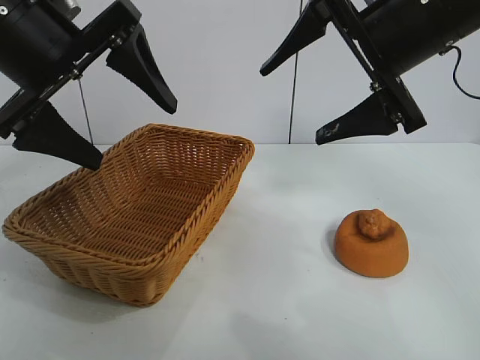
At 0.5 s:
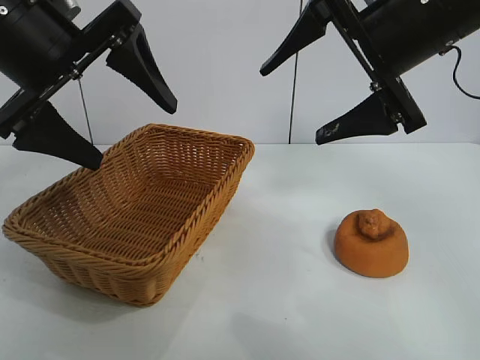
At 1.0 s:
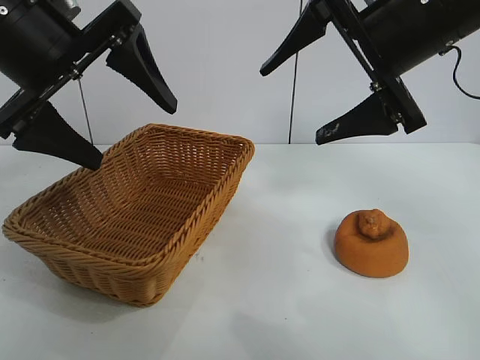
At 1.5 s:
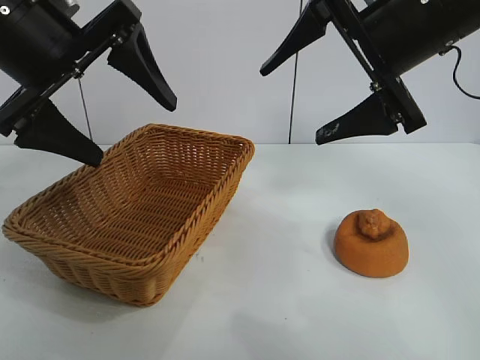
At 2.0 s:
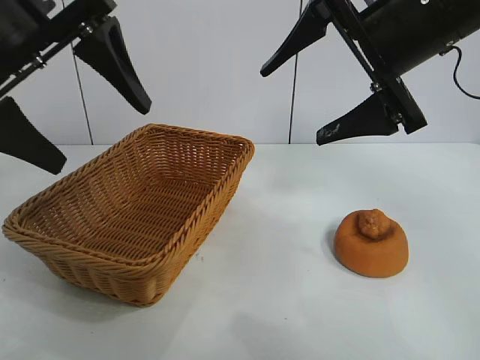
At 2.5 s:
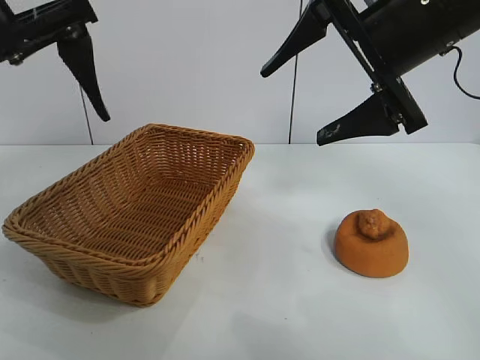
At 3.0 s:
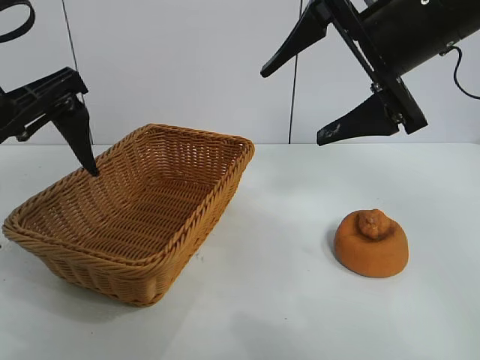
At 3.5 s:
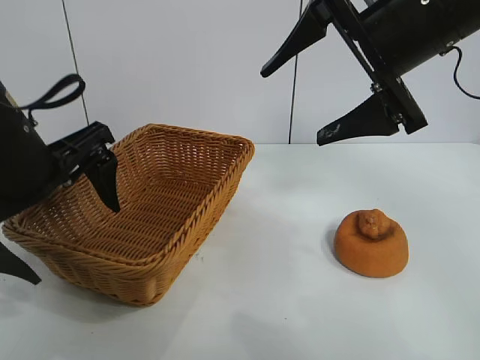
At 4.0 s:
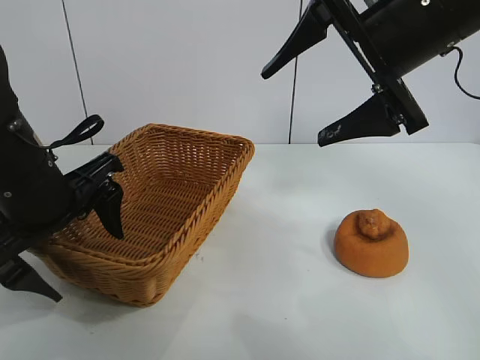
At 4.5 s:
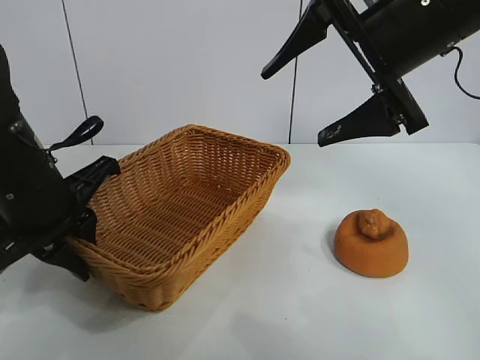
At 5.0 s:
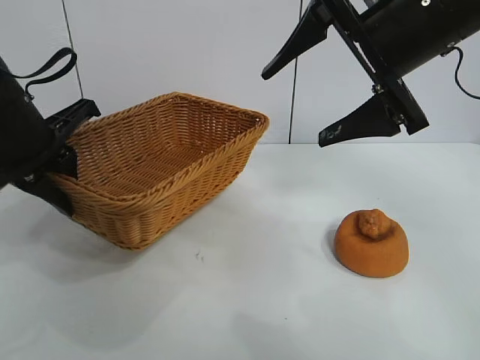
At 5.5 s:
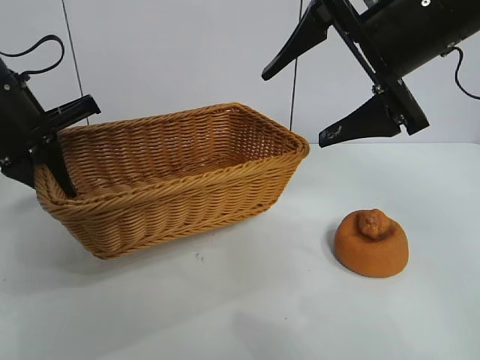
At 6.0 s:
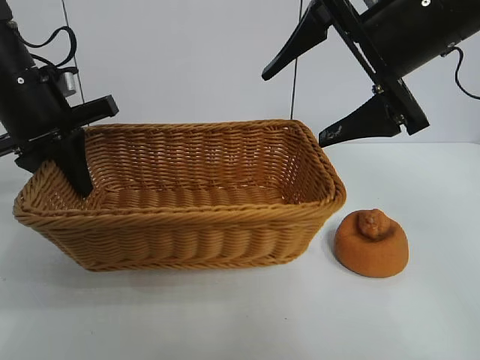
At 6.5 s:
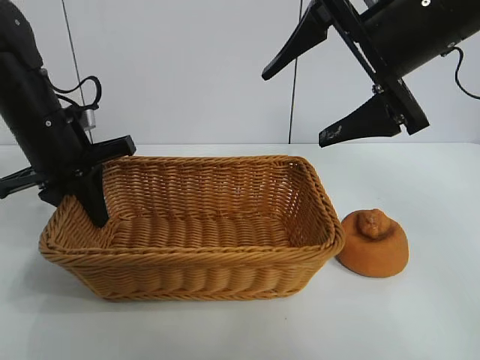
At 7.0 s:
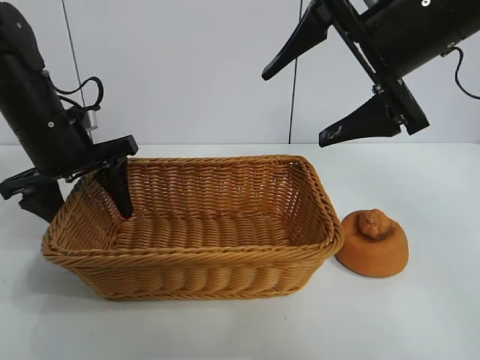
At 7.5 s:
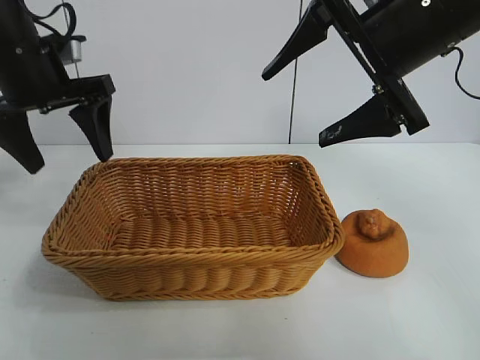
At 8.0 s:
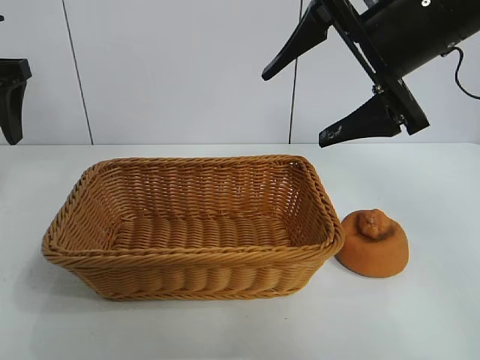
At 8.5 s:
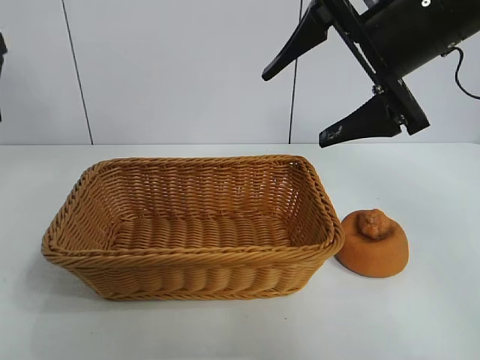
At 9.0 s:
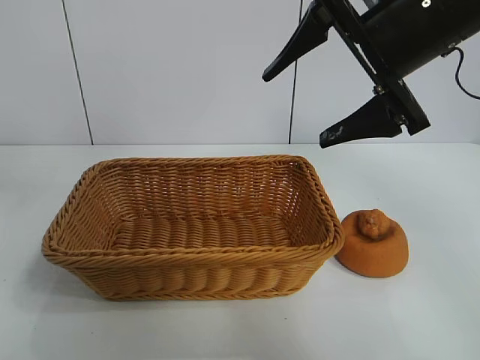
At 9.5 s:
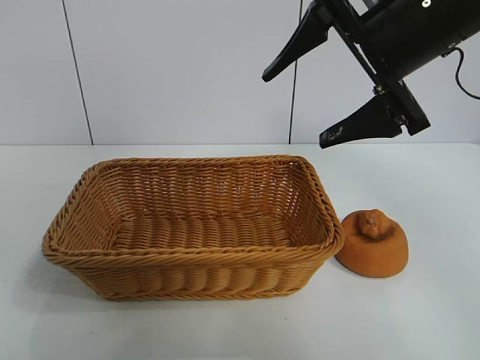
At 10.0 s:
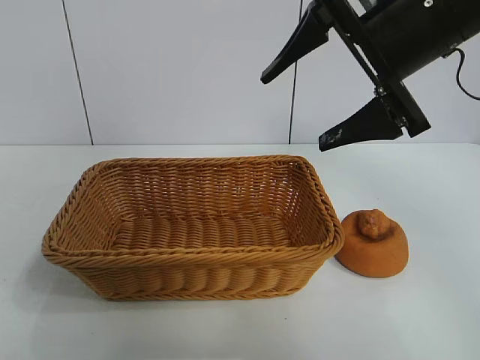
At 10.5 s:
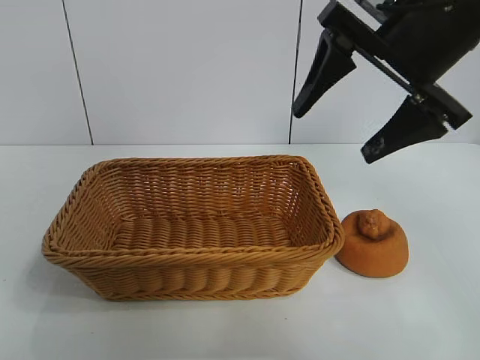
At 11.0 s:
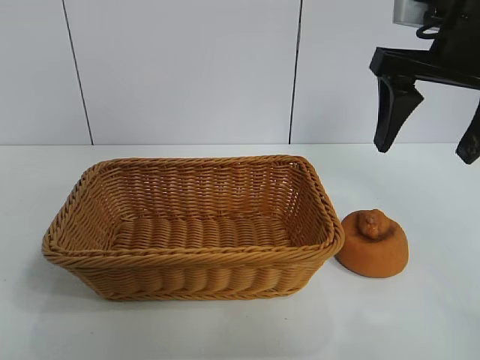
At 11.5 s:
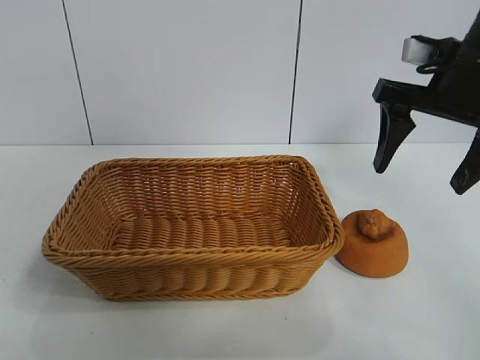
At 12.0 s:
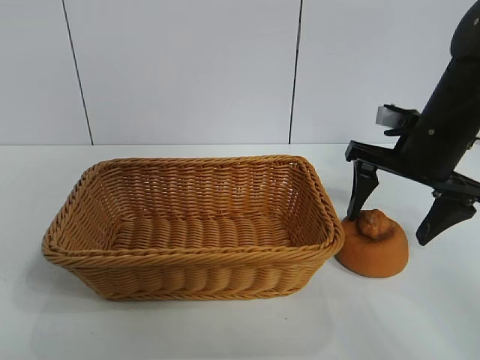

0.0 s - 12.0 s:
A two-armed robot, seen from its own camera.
Task of the whole recording: pick up the orange and put it into the basket.
Step, 1.5 s - 4.0 s: Grasp the basket with left gripper.
Step, 4.5 s - 7.0 s: Place the basket in the center of view with left gripper.

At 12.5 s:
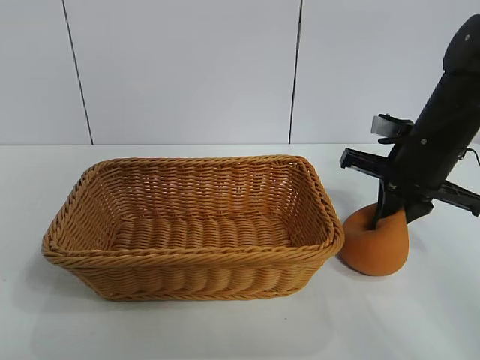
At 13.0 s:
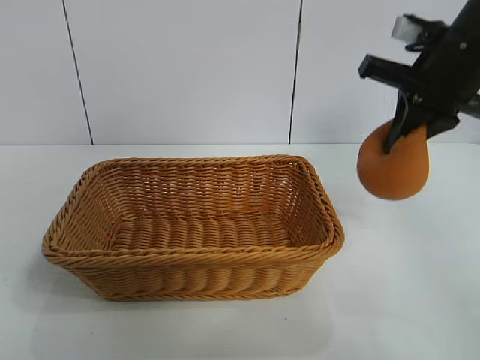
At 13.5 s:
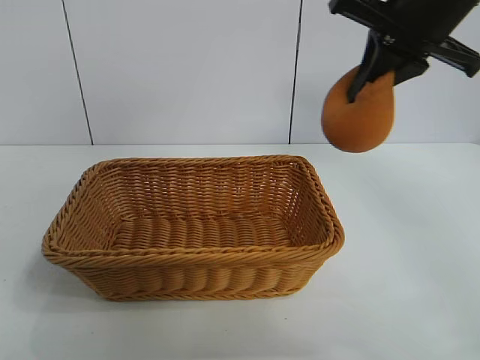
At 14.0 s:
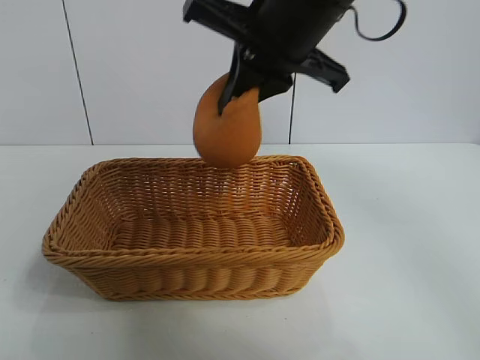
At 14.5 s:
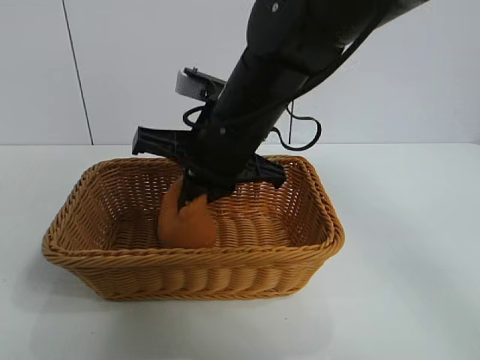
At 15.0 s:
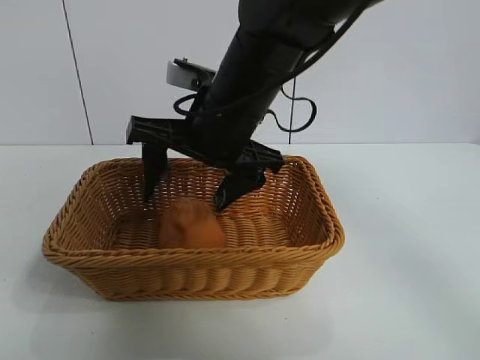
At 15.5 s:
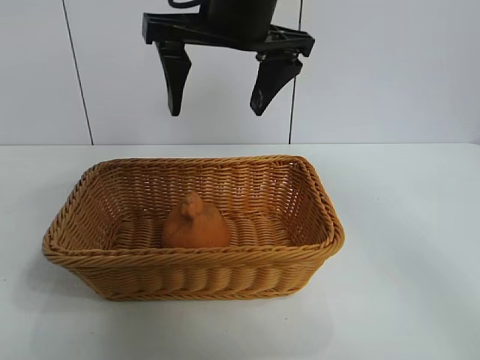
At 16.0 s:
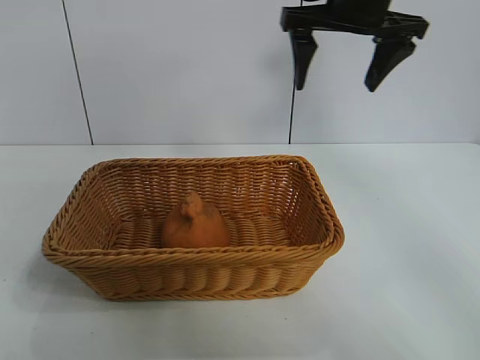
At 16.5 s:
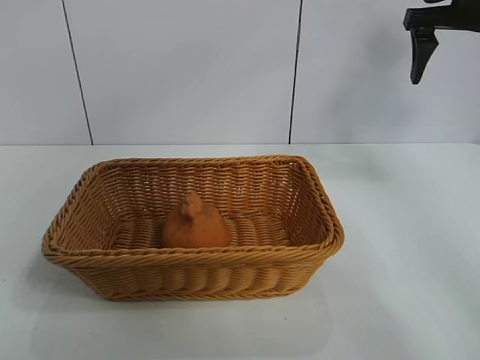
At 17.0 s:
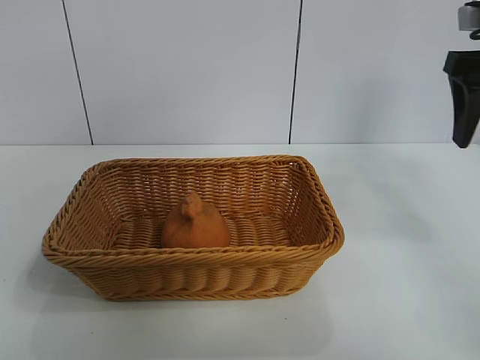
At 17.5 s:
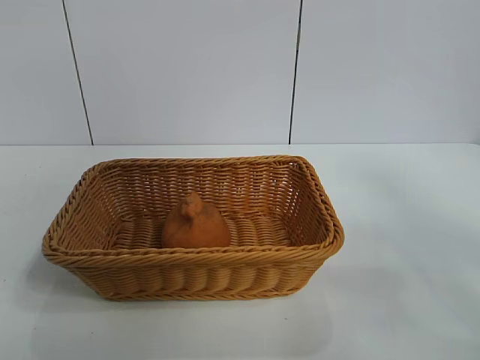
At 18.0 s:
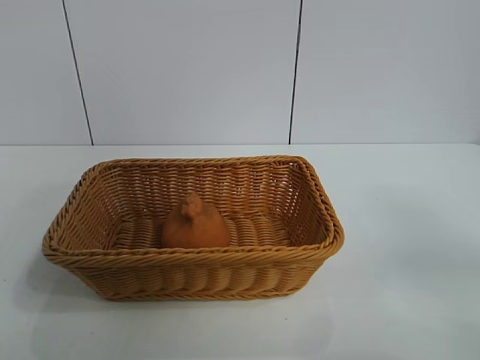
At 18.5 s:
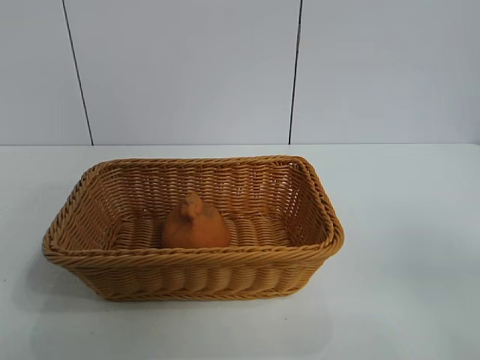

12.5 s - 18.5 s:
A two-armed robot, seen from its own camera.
Task of the whole recording: pick up the orange and put it into the basket.
Step, 13.0 s - 15.0 s: Place the orange in the basket with right gripper.

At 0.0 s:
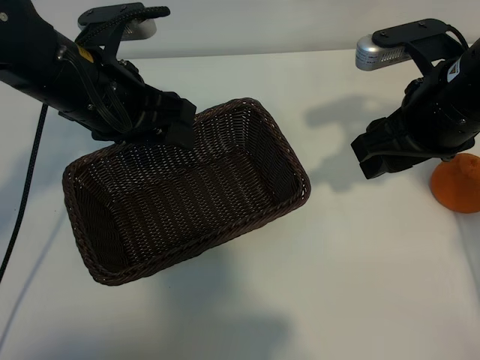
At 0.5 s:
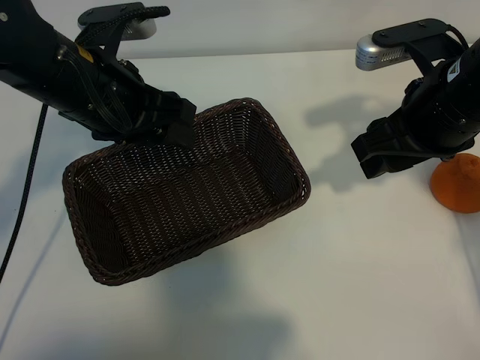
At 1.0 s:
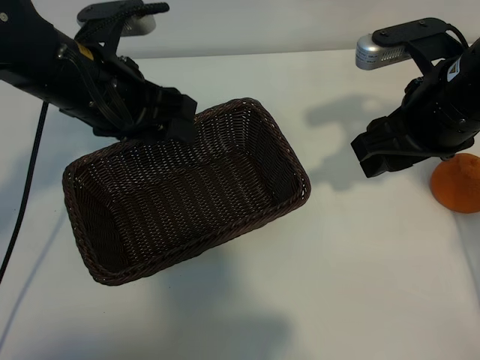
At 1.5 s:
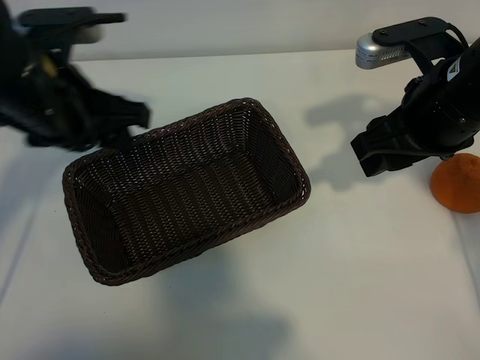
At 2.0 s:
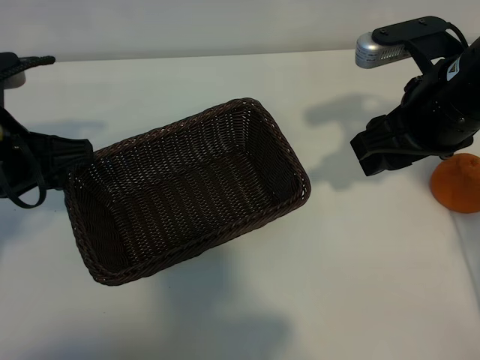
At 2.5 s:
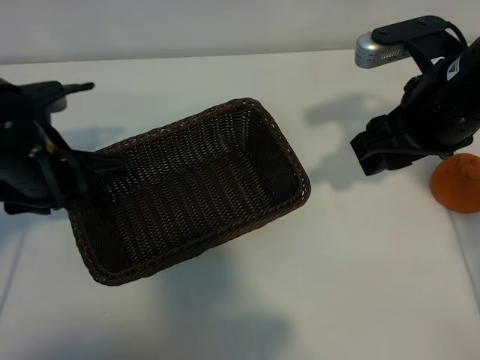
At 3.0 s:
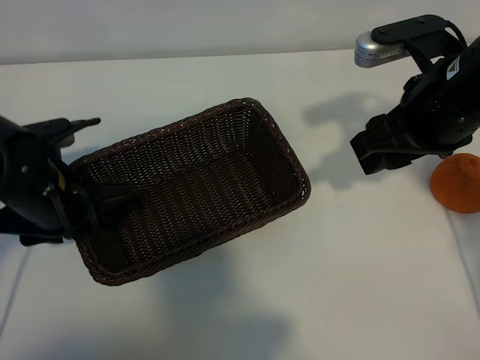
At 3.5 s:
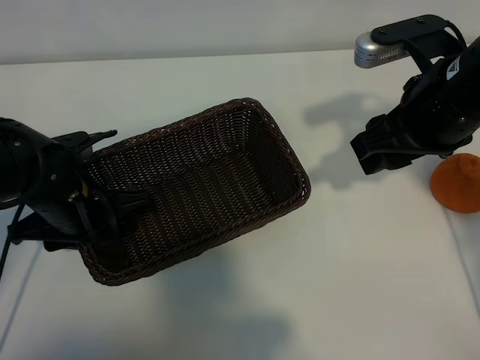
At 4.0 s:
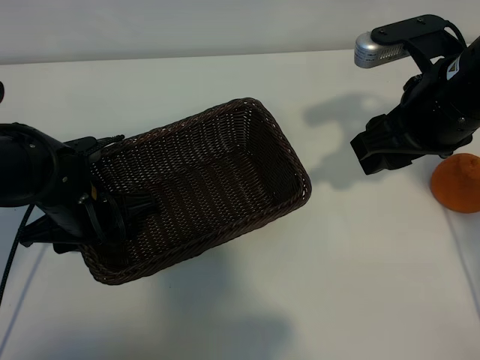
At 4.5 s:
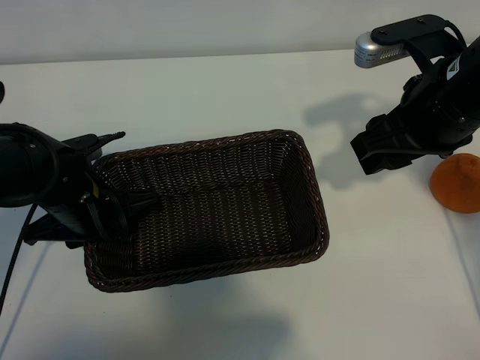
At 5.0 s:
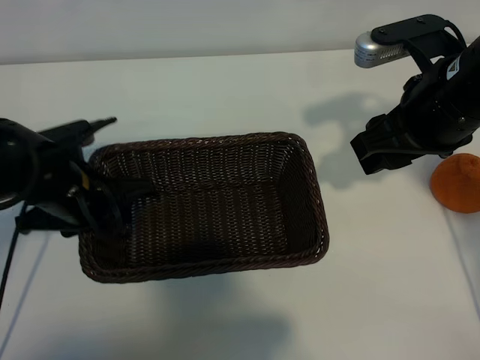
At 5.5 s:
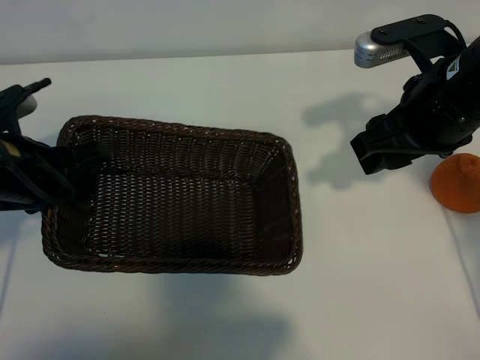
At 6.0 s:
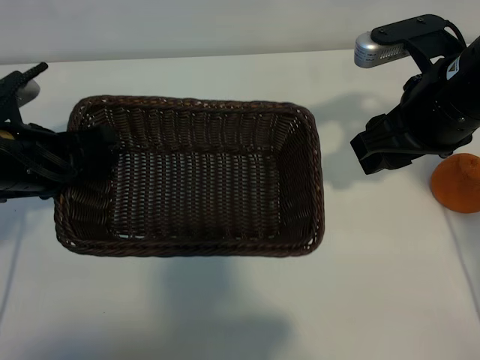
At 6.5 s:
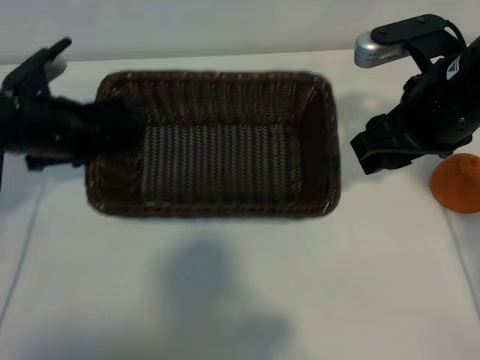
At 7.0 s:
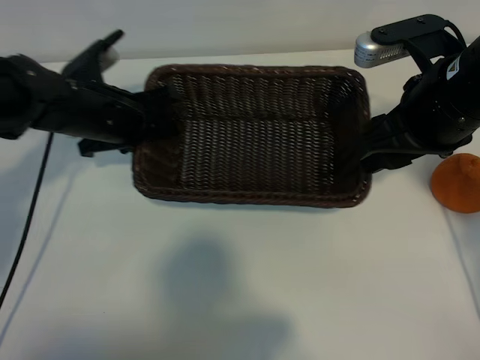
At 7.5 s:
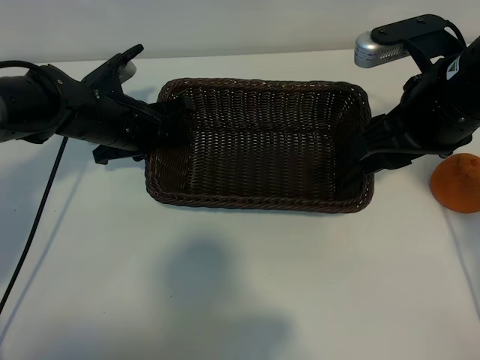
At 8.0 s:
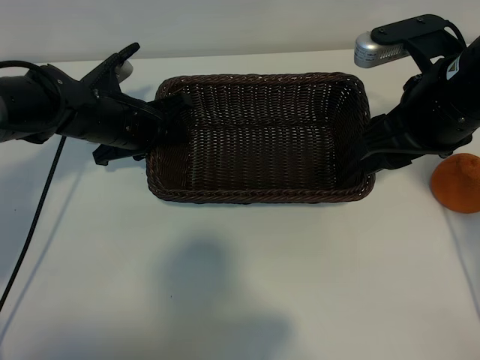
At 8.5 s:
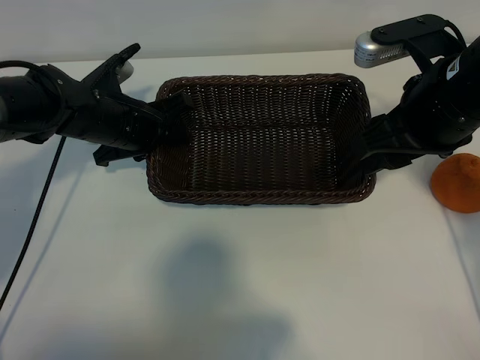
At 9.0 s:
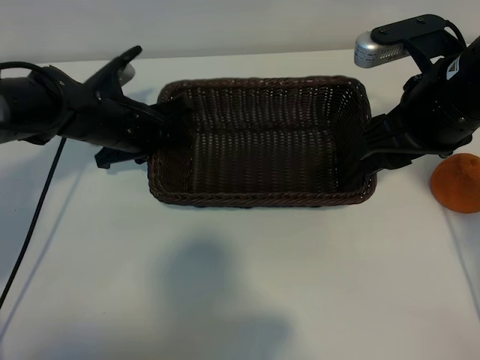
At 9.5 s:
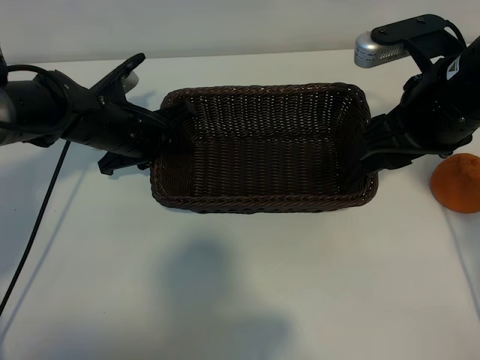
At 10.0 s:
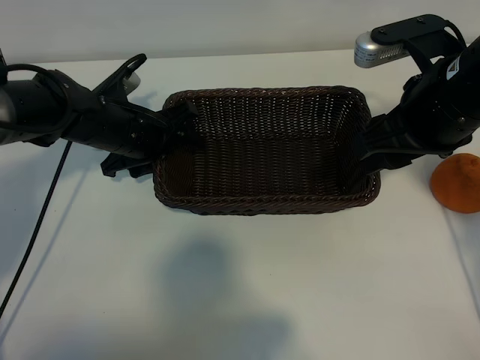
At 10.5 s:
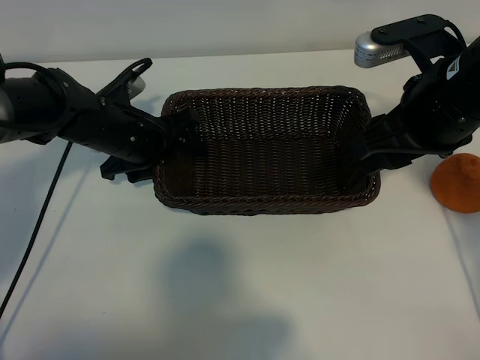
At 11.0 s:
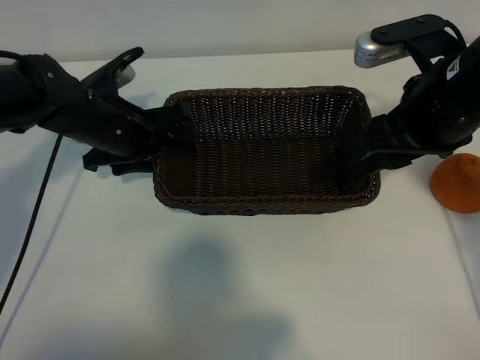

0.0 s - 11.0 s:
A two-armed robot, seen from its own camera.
Task of the whole recording: pick up the orange and put it into the basket.
Step, 1.0 s - 4.0 s: Grasp the basket with left gripper.
Step, 4.5 s - 9.5 s: Place the basket in the center of view with left gripper.
